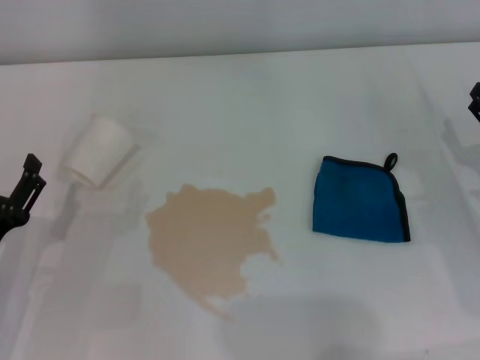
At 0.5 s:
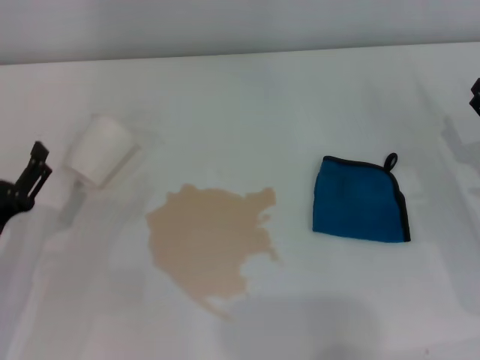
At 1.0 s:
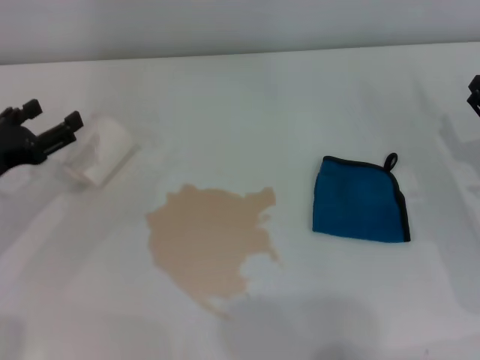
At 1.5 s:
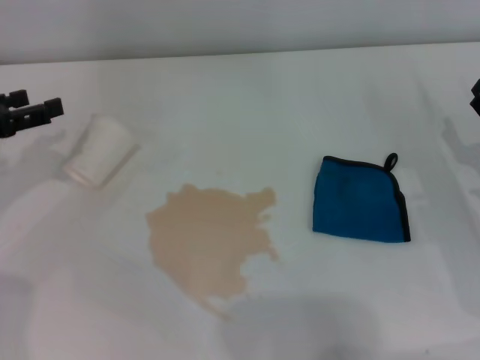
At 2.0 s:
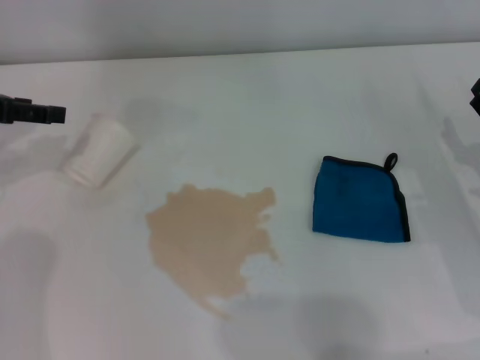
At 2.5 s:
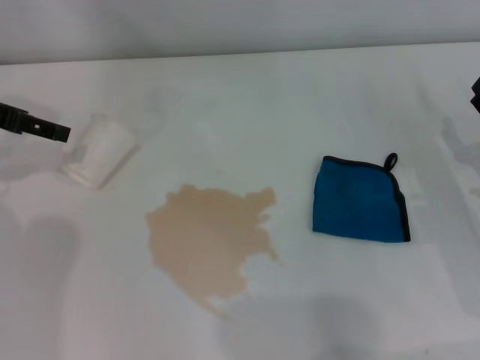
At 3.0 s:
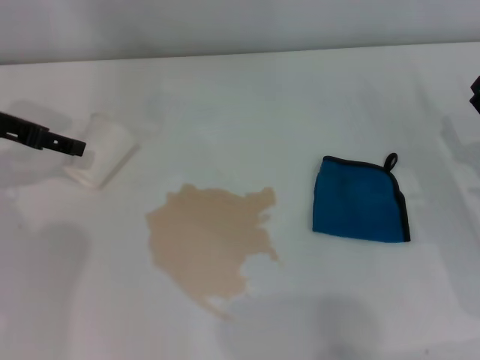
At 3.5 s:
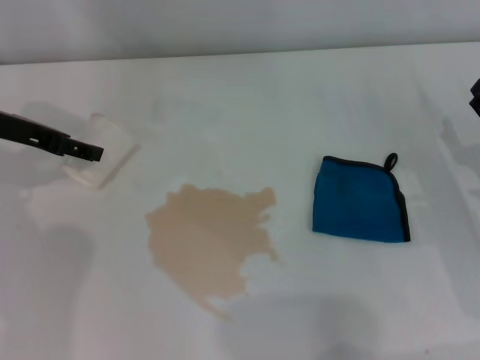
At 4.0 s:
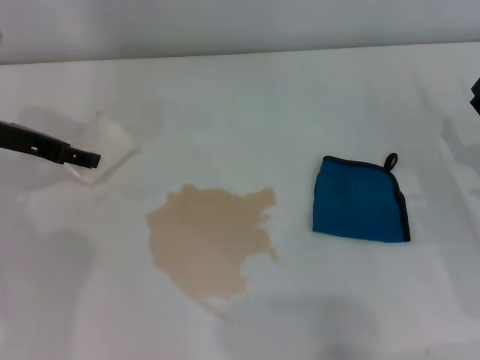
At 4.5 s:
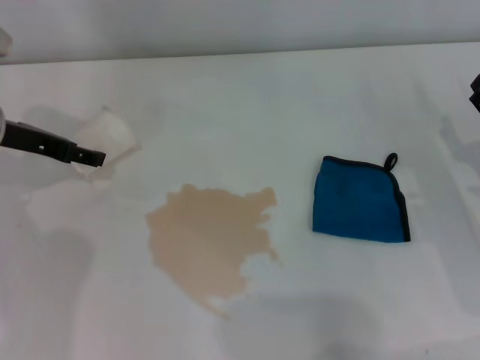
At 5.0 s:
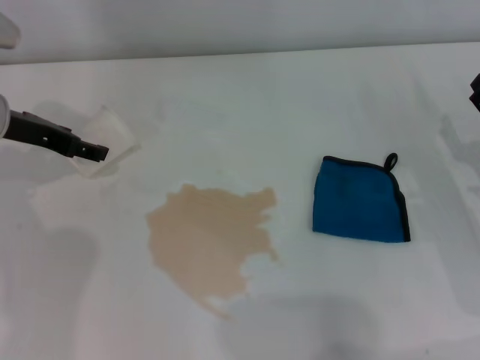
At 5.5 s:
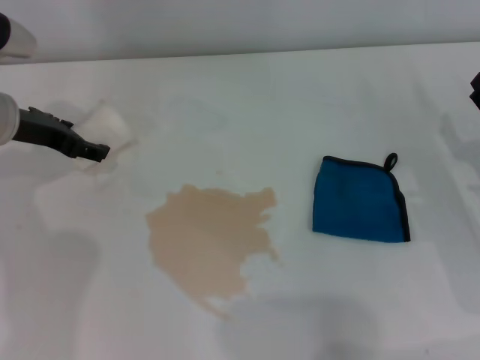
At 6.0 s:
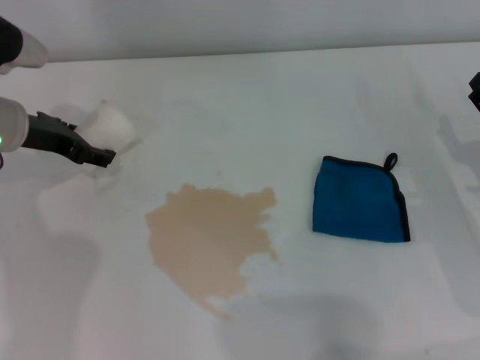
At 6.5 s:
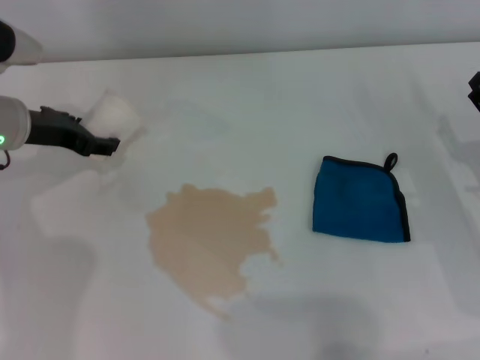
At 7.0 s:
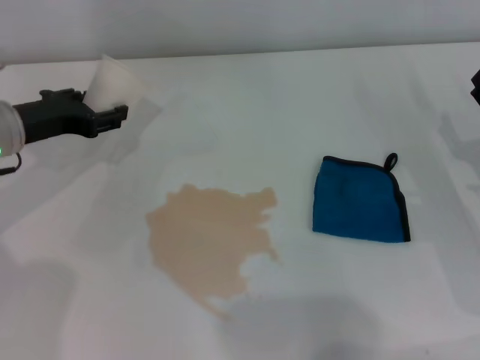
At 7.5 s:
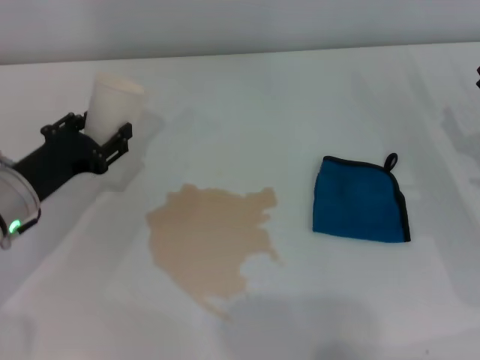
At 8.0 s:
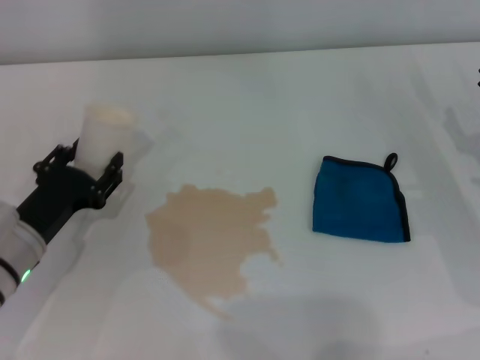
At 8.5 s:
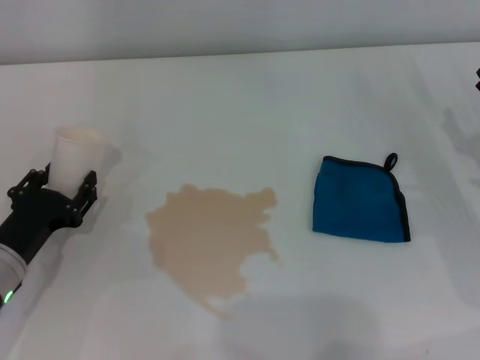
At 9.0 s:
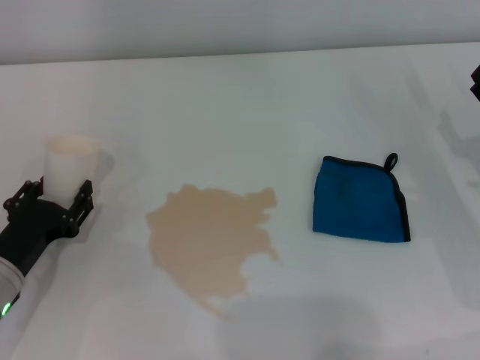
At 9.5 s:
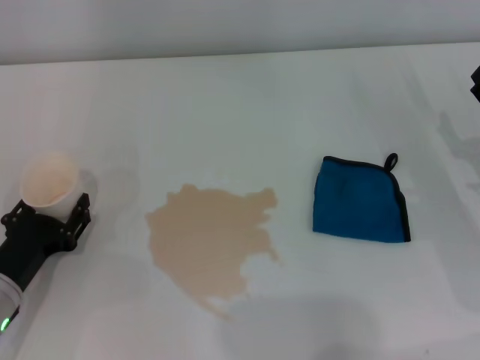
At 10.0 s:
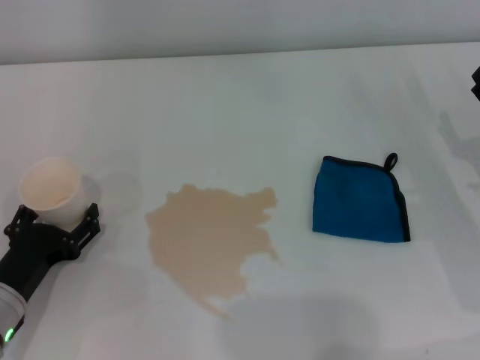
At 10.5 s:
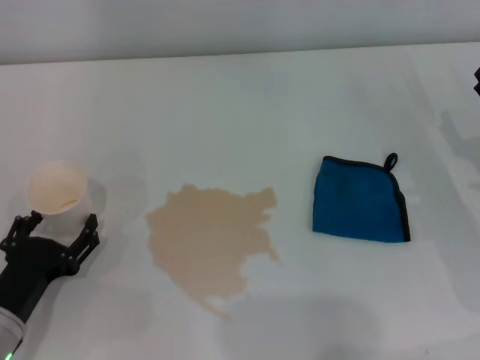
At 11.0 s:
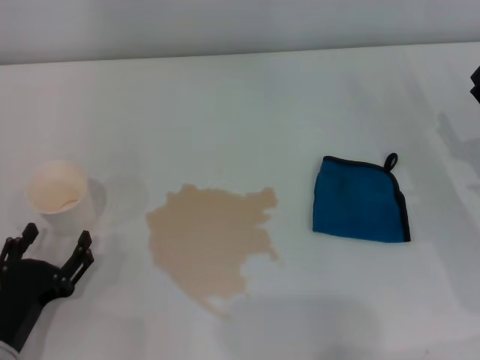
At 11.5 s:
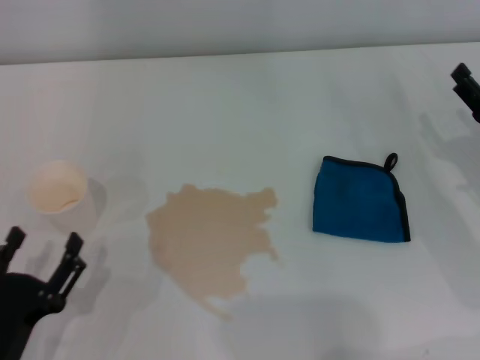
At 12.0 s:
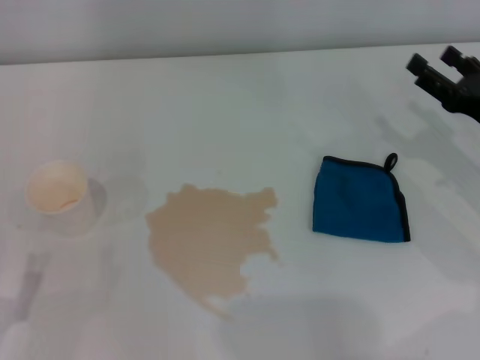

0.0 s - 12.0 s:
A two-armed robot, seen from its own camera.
Step, 0.0 s - 6.0 s: Grasp the paper cup with the left gripper.
Step, 6.5 s - 9.5 s: Stand the paper cup upright with the left gripper.
0.0 s - 2.0 s: The left gripper moves forward and upward, some 25 cm.
2.0 s - 4.0 s: The left gripper travels to the right by roughly 5 cm.
4.0 s - 6.0 s: The grippers stay close to where they were, moving slightly.
6.0 s - 8.0 s: The left gripper moves backward and downward, about 15 cm, and closes its fingers.
8.0 s - 10.0 s: The left gripper shifts some 5 cm backward, and opens up.
10.0 s - 12.0 s: The left gripper goes roughly 10 cm backward, and opens its fingers.

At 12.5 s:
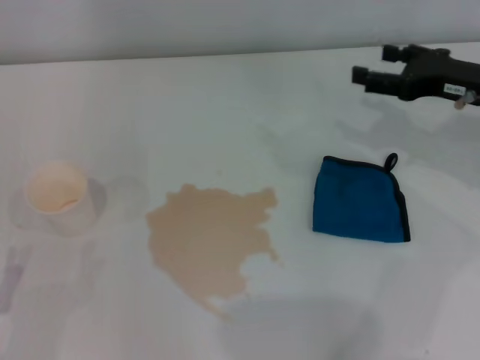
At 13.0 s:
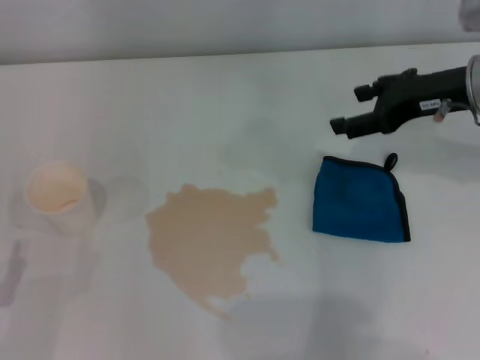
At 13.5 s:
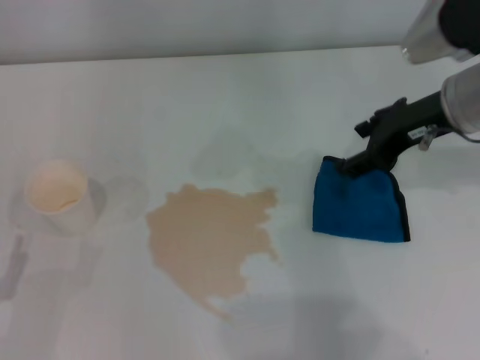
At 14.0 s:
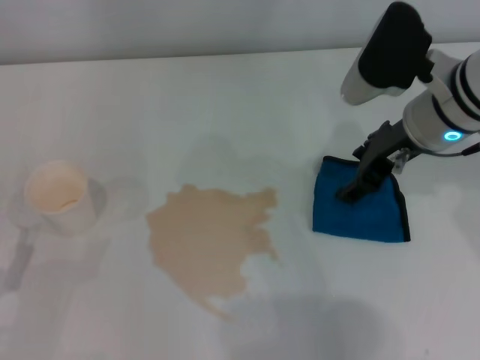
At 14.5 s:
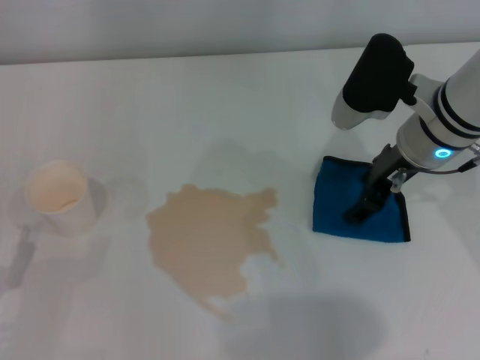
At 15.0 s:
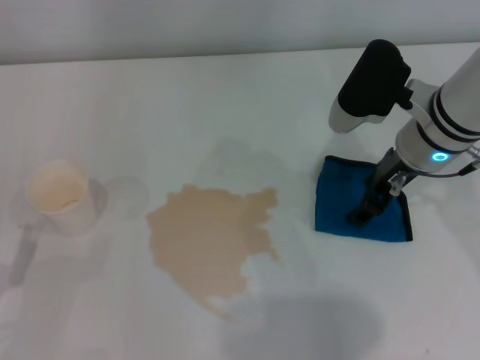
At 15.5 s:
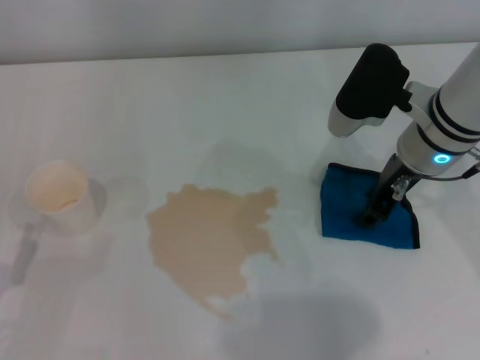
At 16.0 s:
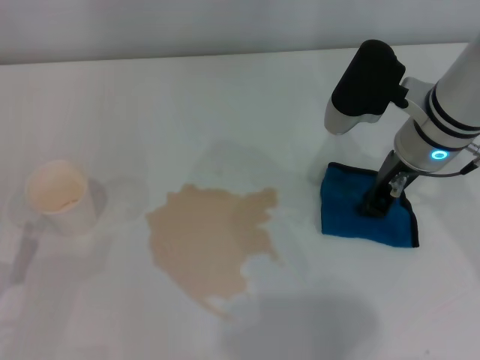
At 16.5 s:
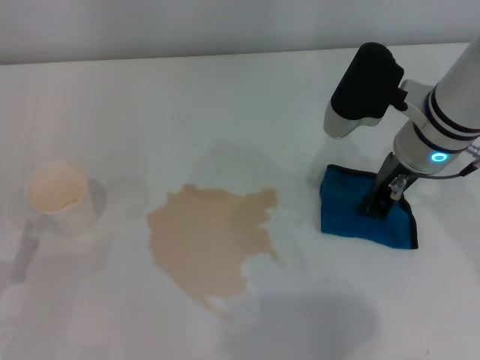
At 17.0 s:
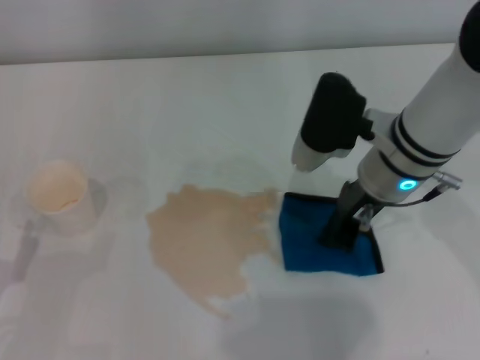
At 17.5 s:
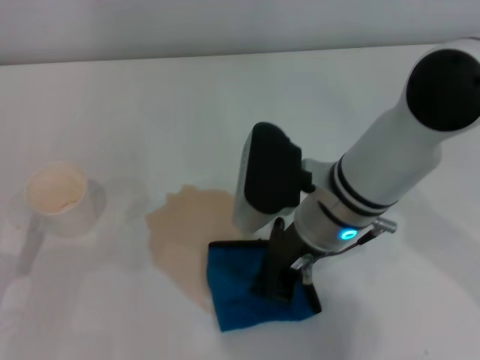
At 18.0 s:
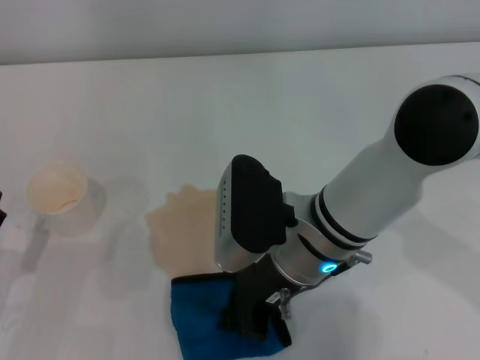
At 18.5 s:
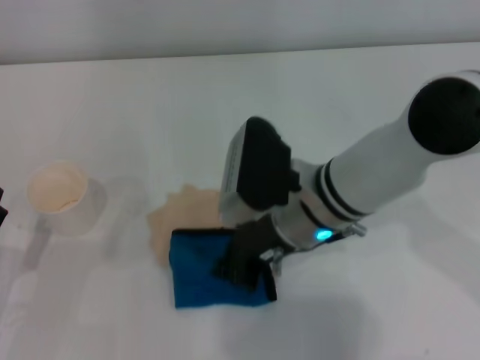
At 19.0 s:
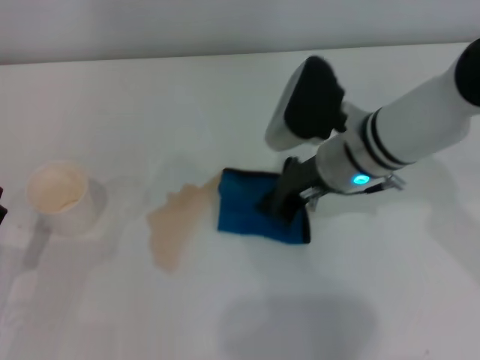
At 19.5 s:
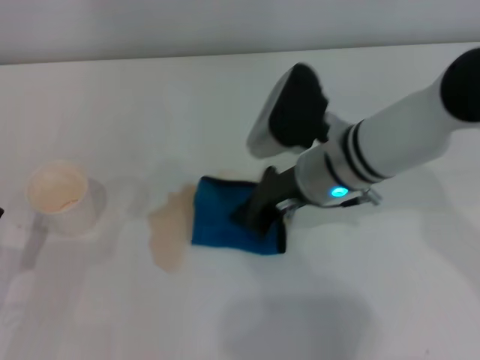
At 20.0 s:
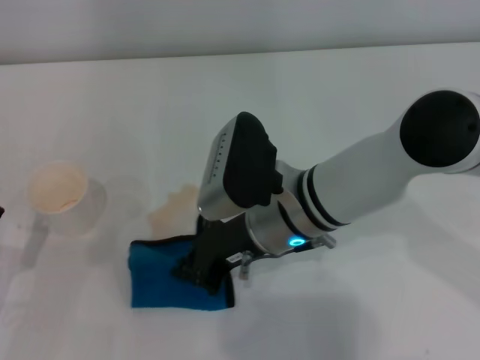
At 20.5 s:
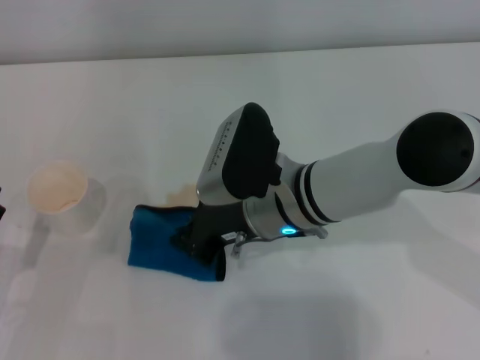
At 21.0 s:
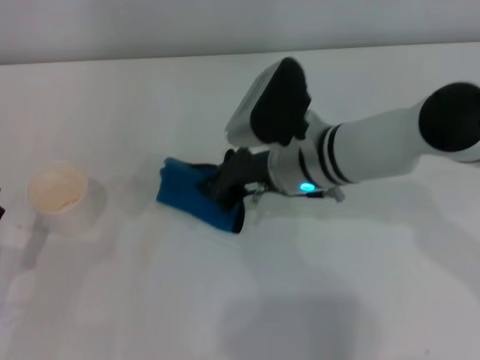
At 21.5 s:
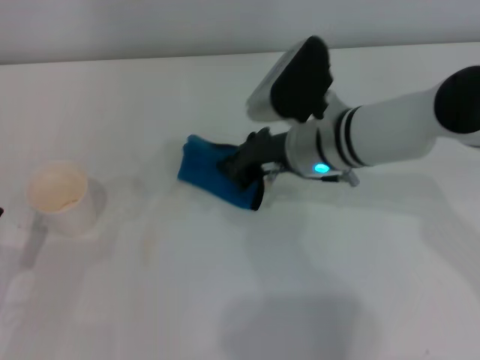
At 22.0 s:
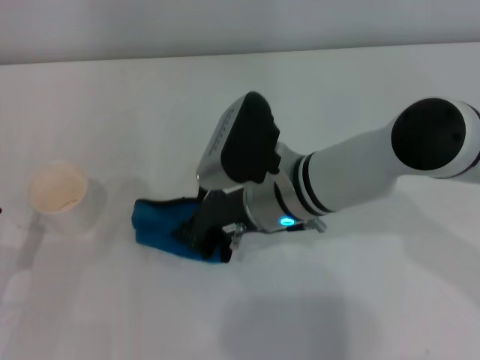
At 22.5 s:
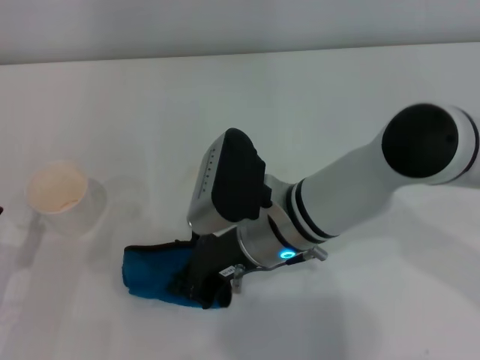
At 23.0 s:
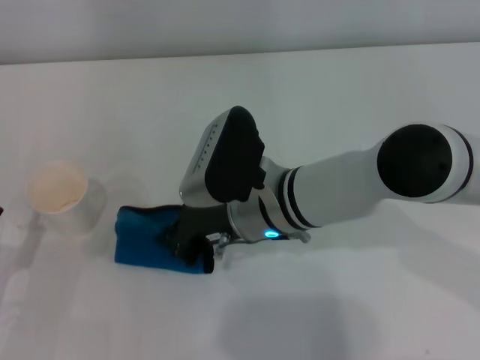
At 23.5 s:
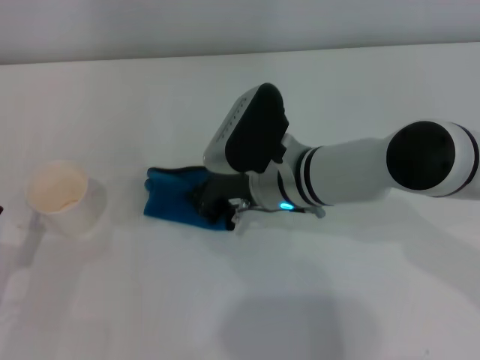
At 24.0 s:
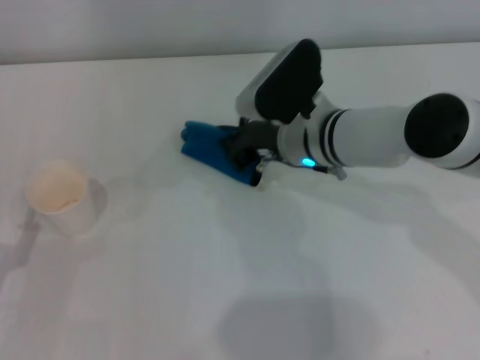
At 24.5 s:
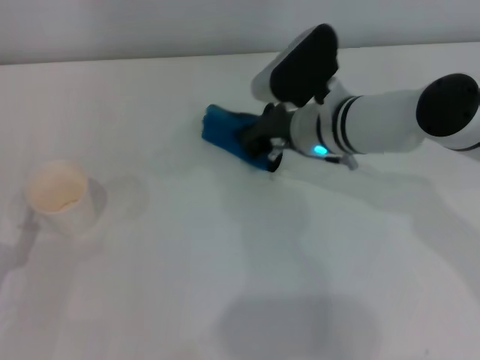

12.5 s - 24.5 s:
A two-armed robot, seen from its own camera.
Step, 12.5 s - 16.0 s: Grasp the rag with the right gripper.
12.5 s - 14.5 s: The right gripper travels to the left by about 10 cm.
14.5 s - 16.5 s: The right gripper closes up.
16.5 s - 18.5 s: The right gripper is displaced to the left by some 10 cm.
22.5 s - 24.5 s: The right gripper shifts about 10 cm forward and to the right.

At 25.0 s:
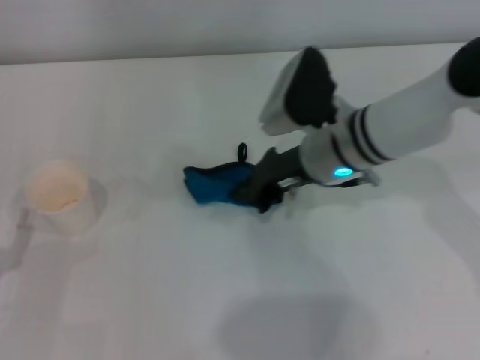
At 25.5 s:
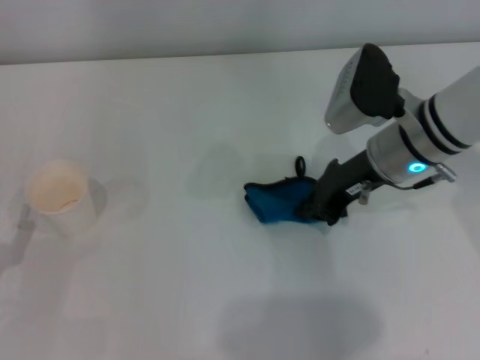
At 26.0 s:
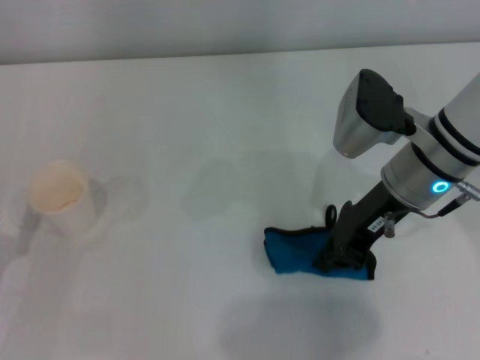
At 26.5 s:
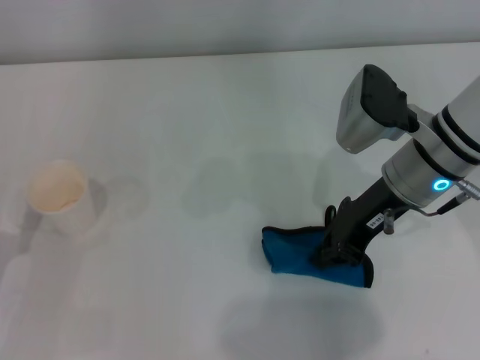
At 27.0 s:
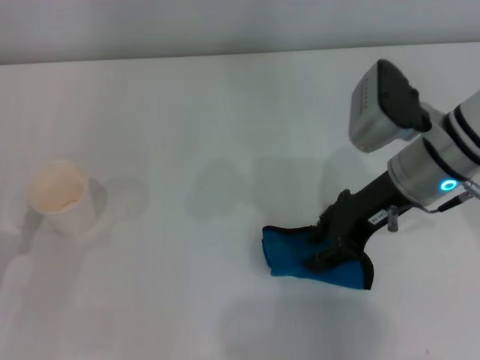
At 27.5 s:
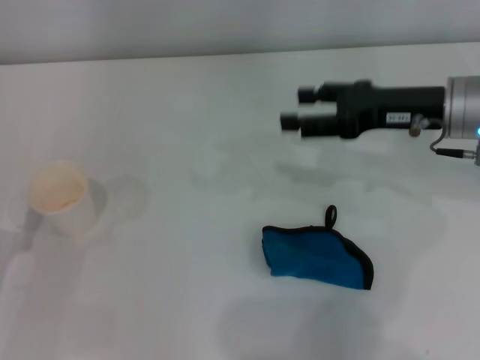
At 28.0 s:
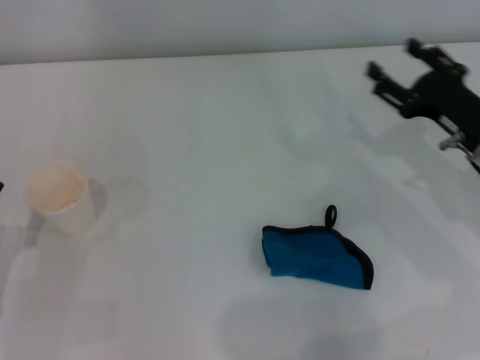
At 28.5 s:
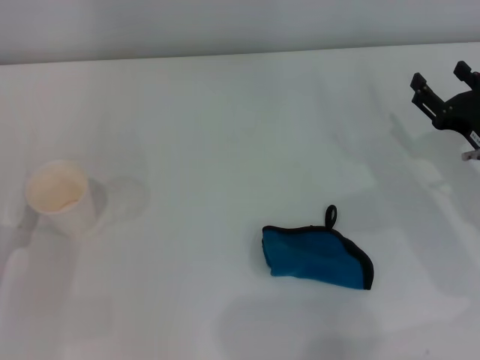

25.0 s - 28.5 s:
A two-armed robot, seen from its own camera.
Step, 26.0 s - 26.5 s: Place the rag on the table with the right gripper.
25.0 s - 27.0 s: The right gripper travels to the right by approximately 5 cm, and opens.
27.0 s - 28.5 s: The right gripper shifts some 15 cm to the right and downward, and opens up.
